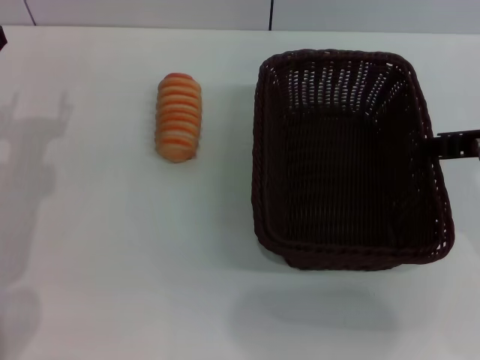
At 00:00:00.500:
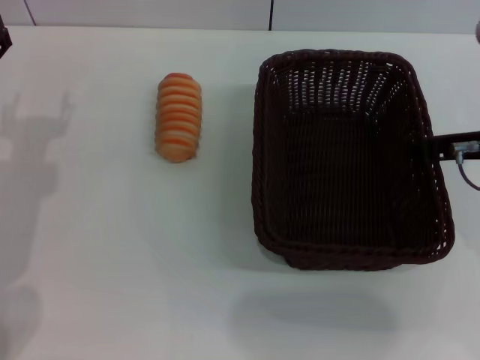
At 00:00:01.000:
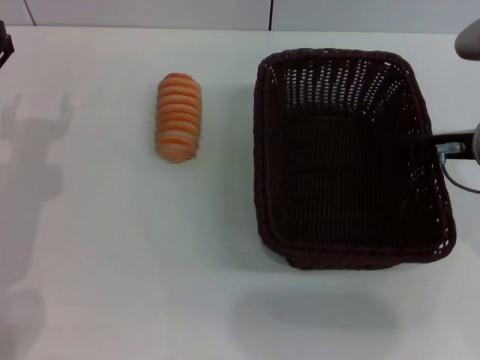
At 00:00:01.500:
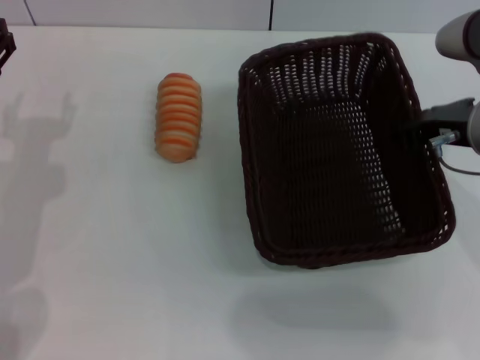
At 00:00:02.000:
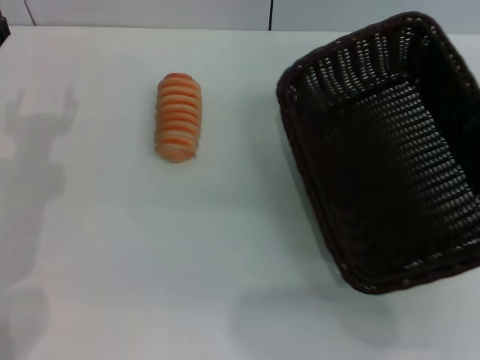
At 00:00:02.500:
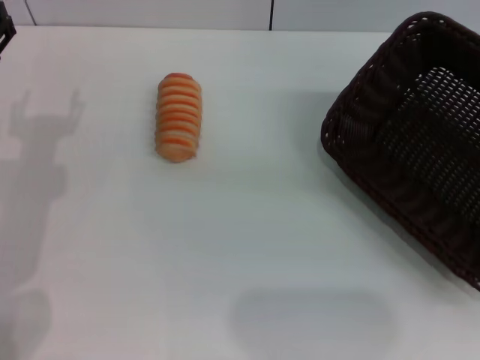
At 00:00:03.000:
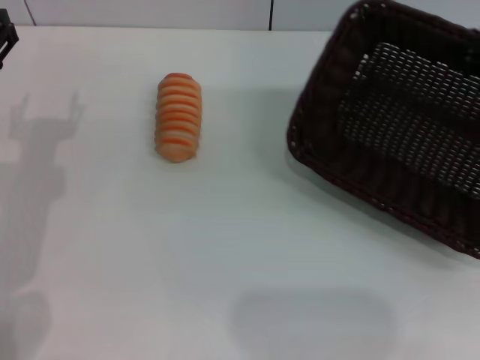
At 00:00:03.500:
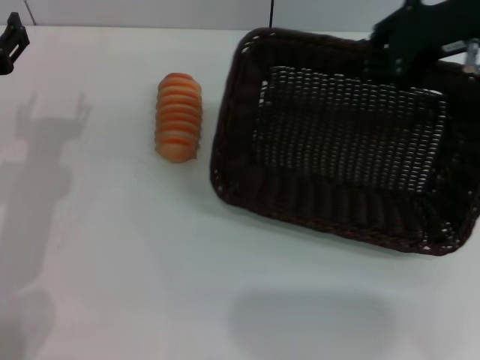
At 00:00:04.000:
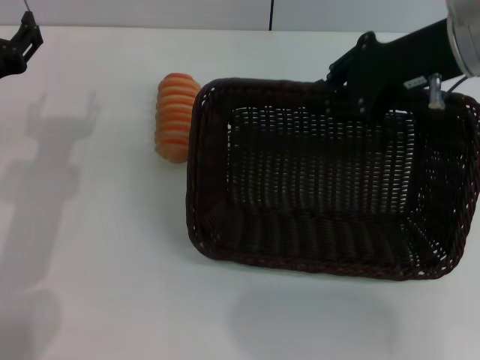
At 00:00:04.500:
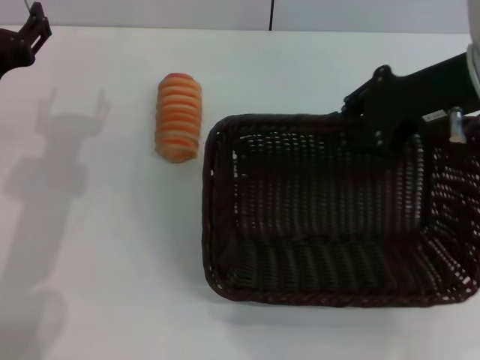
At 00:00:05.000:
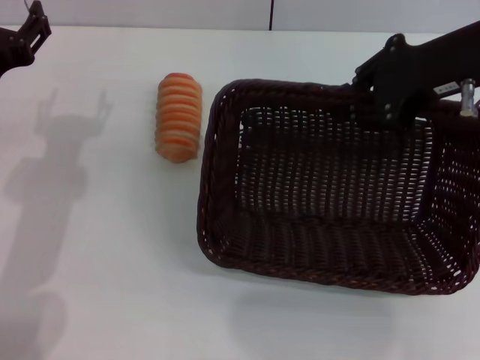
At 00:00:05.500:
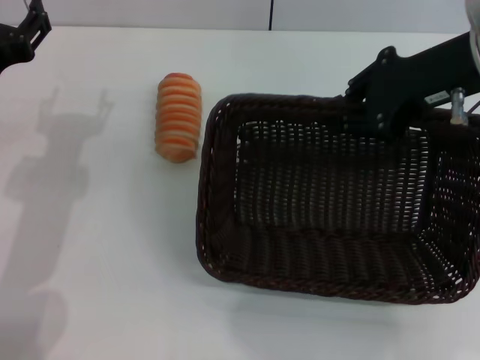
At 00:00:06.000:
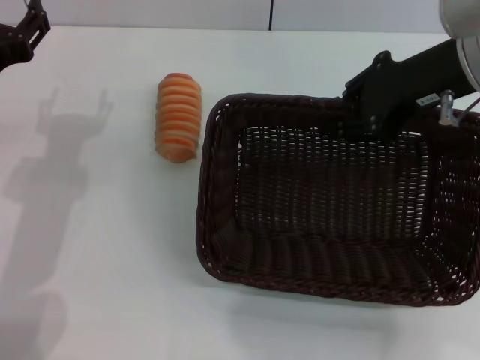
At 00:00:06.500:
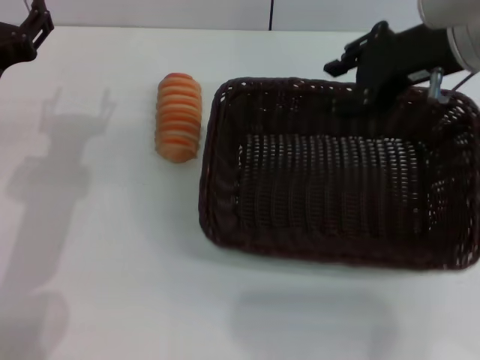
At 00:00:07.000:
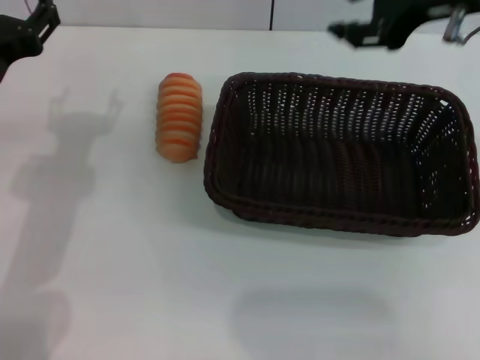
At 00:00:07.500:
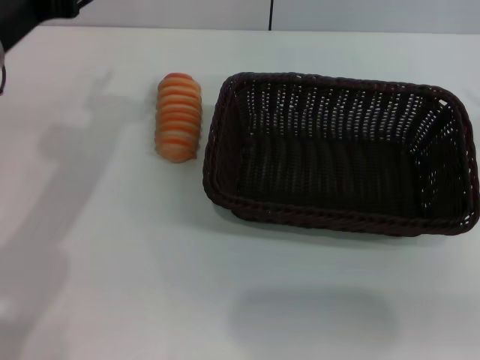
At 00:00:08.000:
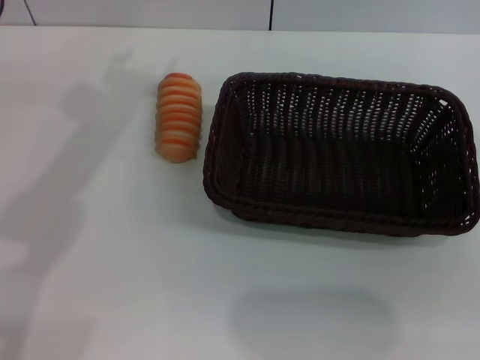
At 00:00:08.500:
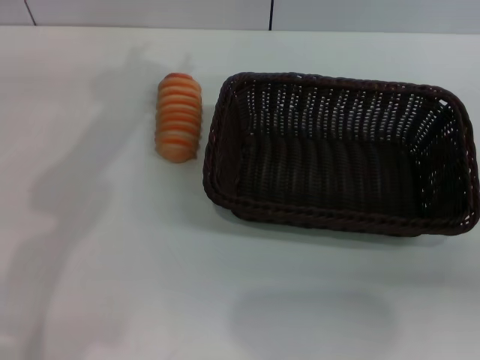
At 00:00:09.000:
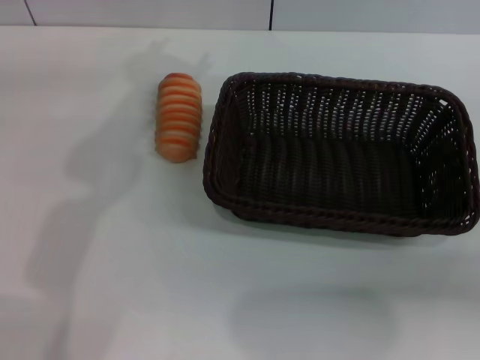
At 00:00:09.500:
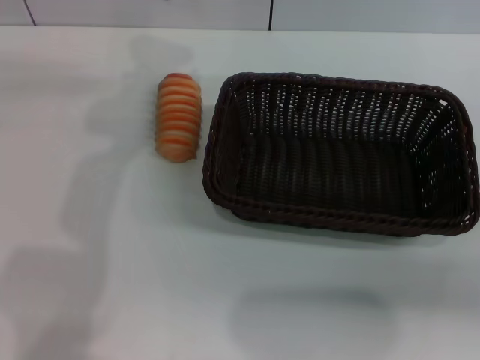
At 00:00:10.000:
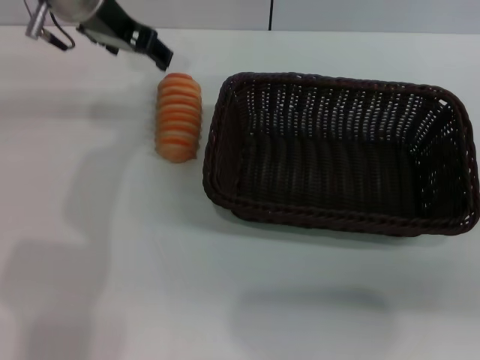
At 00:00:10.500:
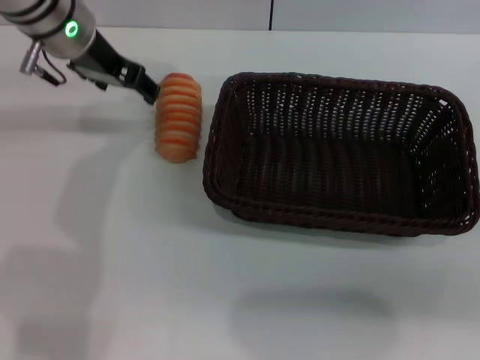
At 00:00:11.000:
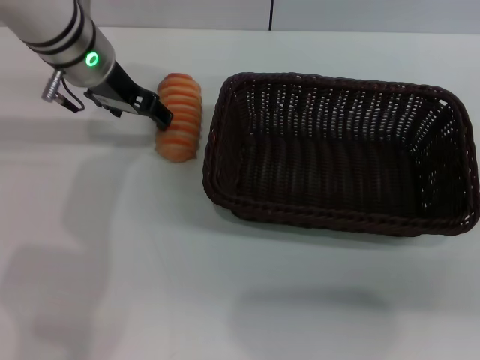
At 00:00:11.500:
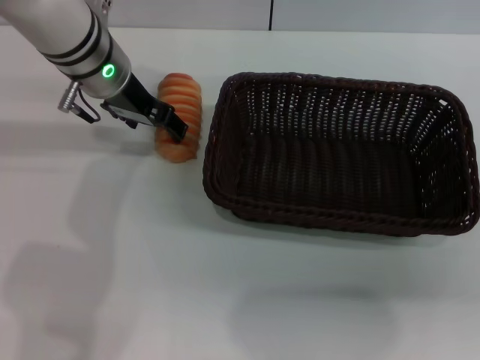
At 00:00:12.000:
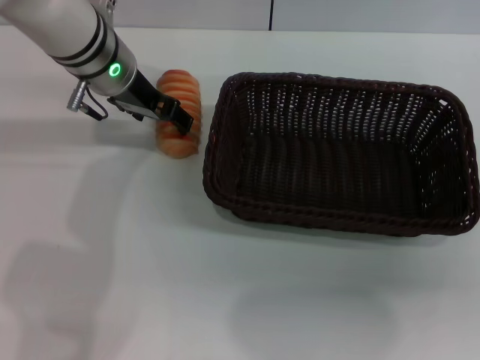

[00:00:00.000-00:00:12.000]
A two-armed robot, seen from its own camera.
Step, 00:00:02.000 to 00:00:07.000: Place the dark basket in the center of view with the right gripper.
00:00:00.000 to 00:00:02.000: The right gripper closes up.
00:00:02.000 to 00:00:04.000: The right gripper shifts roughly 10 cm forward and to the left.
00:00:04.000 to 00:00:06.000: The grippers stay close to where they were, moving slightly.
00:00:06.000 to 00:00:08.000: The right gripper moves to the right and backward, roughly 20 cm, and opens up. The left gripper goes roughly 15 cm upward and forward.
00:00:08.000 to 00:00:10.000: The left gripper shifts approximately 10 cm forward and to the right.
00:00:10.000 to 00:00:12.000: The left gripper moves downward, roughly 5 cm.

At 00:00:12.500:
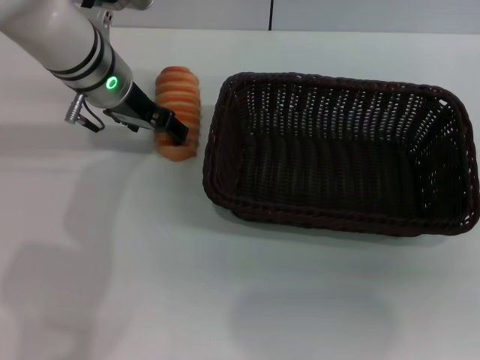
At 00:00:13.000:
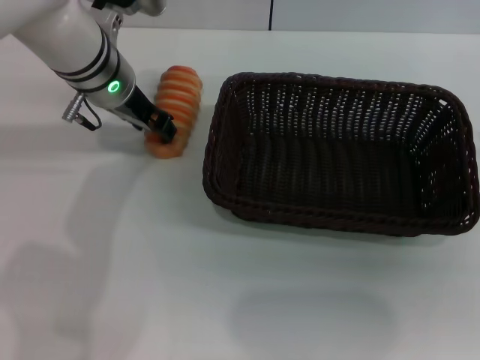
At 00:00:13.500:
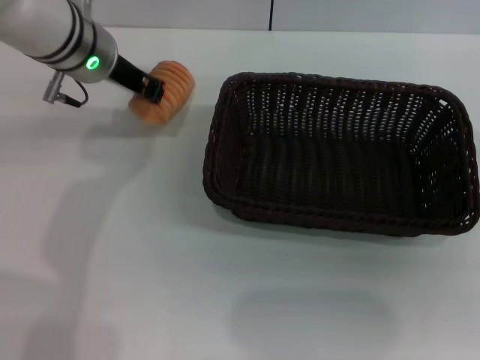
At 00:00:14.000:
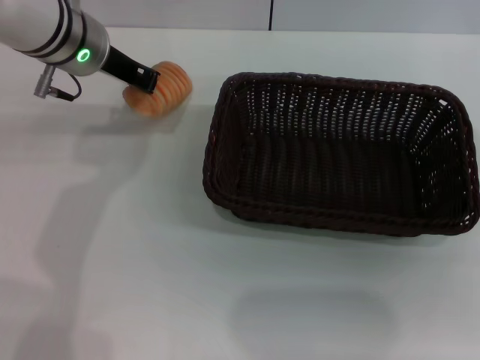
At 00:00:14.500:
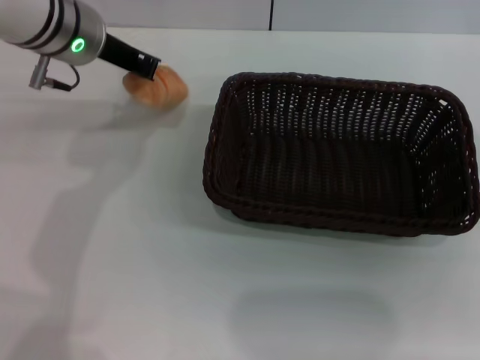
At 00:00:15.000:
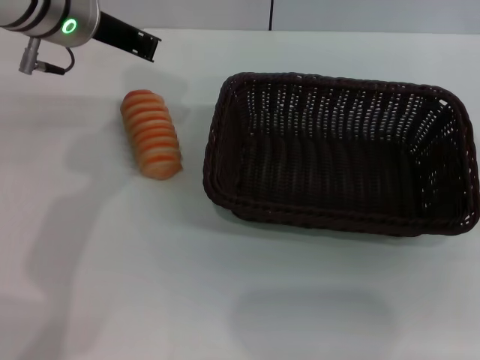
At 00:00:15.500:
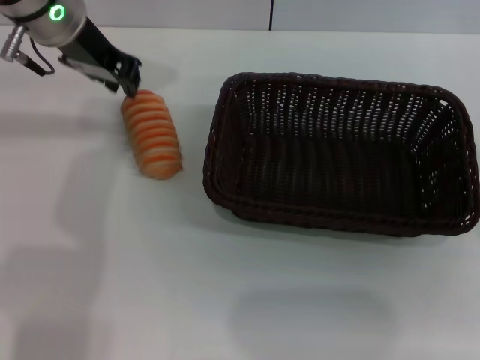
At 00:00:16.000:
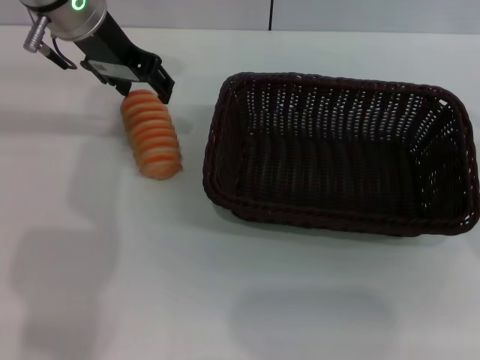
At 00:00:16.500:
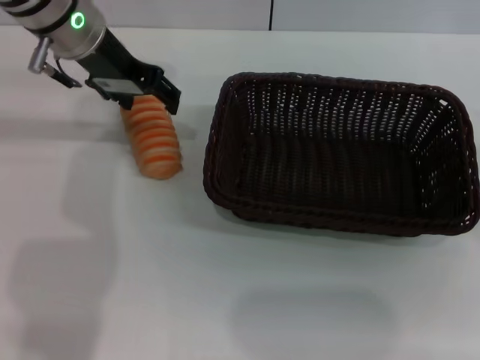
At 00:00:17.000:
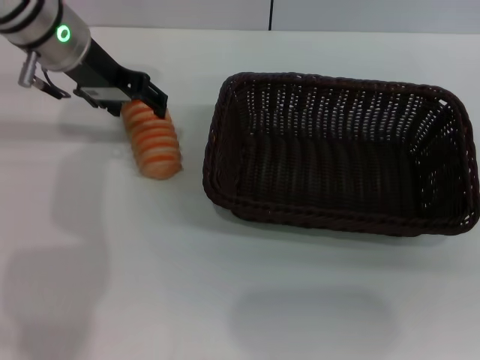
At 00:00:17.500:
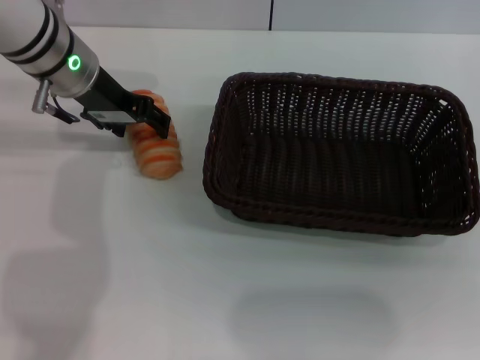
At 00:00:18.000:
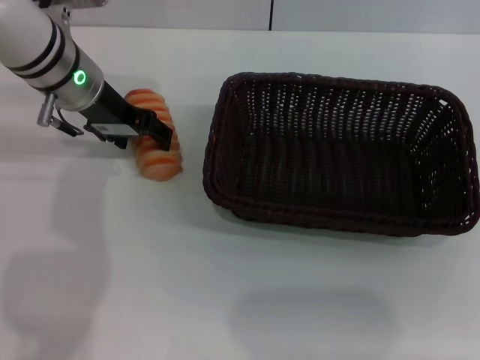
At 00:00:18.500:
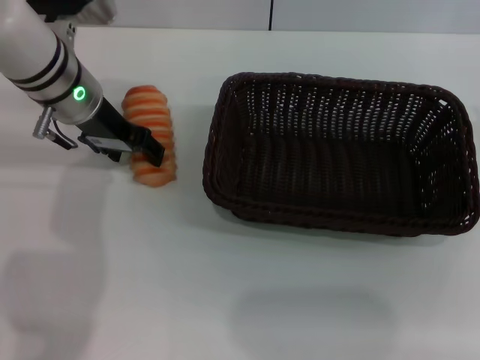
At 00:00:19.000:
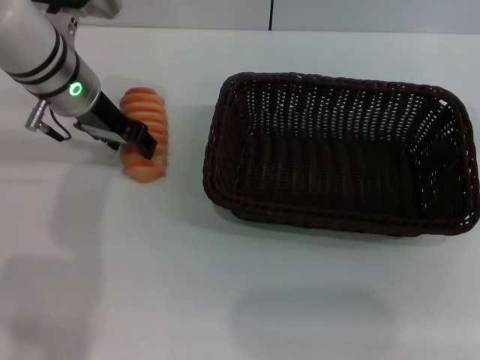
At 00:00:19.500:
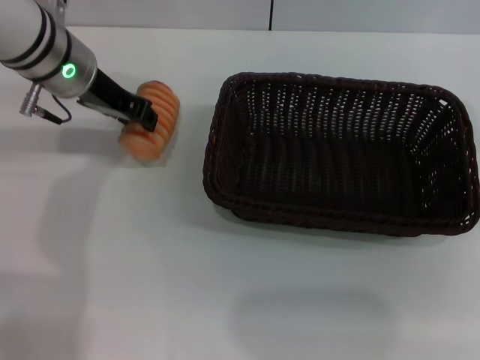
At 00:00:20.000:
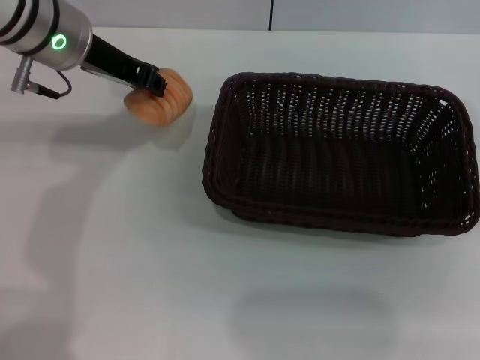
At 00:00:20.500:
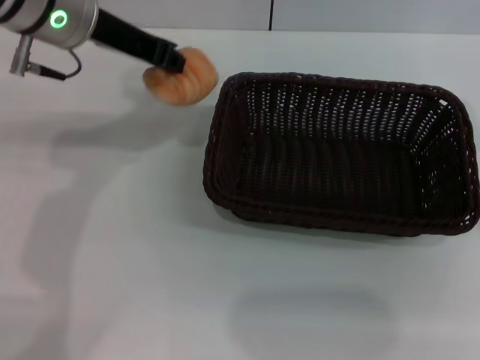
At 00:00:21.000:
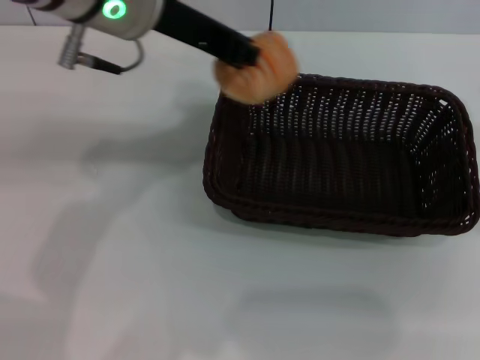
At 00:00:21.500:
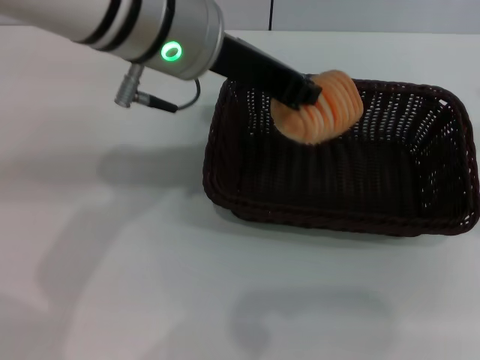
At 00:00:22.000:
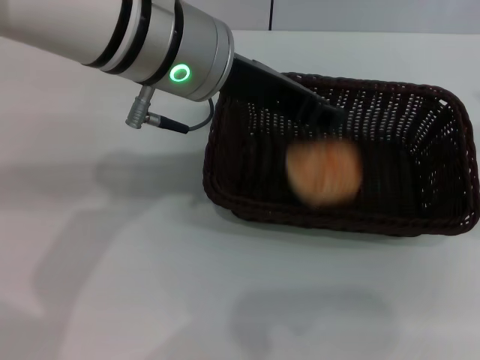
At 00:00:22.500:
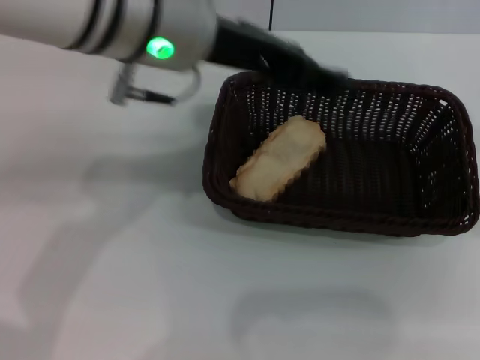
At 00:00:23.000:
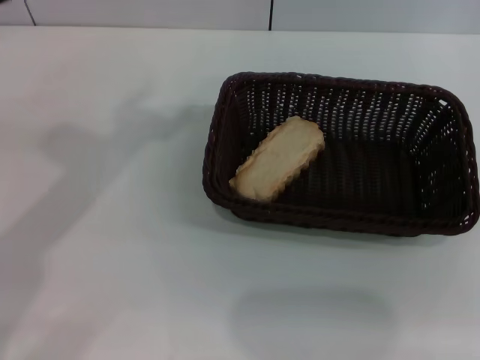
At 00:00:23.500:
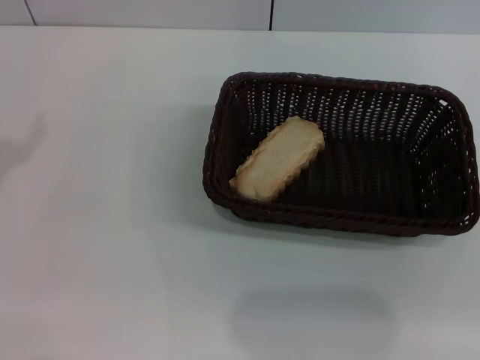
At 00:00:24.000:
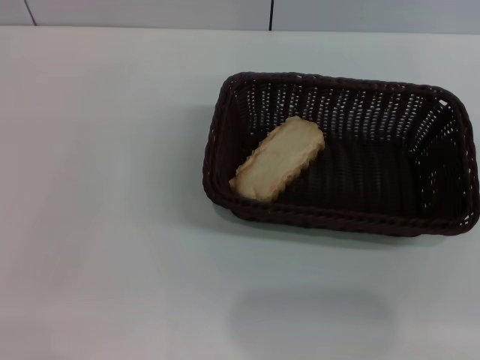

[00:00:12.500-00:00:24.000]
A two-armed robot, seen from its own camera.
Step, 00:00:12.500 to 00:00:20.000: Pick up the long bread with the left gripper.
Step, 00:00:20.500 to 00:00:22.000: Place the long bread into the dark basket with the left gripper.
00:00:12.500 to 00:00:14.500: The left gripper travels upward by about 5 cm, and closes up.
00:00:14.500 to 00:00:16.500: The left gripper opens.
00:00:16.500 to 00:00:18.500: The left gripper moves downward, roughly 5 cm.
00:00:18.500 to 00:00:20.000: The left gripper shifts about 5 cm upward, and closes up.
00:00:20.000 to 00:00:22.000: The left gripper travels to the right and backward by about 15 cm.
00:00:22.000 to 00:00:24.000: The right gripper moves to the right, about 10 cm; the left gripper is displaced to the left and backward by roughly 40 cm, and opens up.
